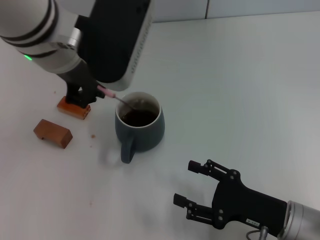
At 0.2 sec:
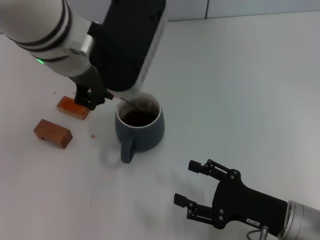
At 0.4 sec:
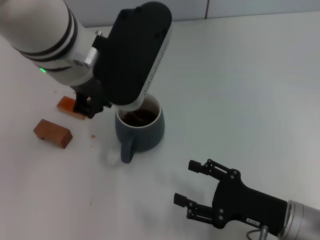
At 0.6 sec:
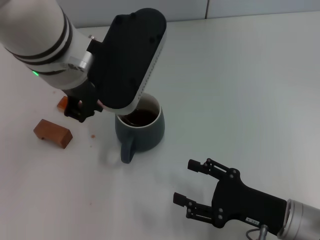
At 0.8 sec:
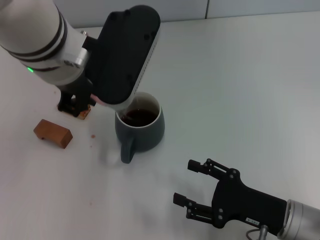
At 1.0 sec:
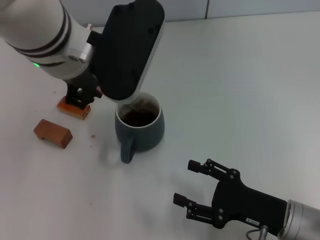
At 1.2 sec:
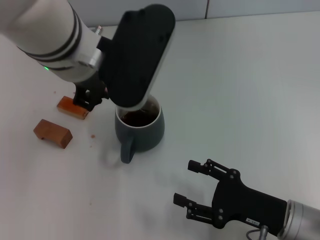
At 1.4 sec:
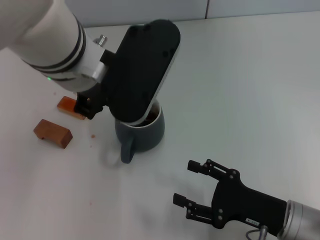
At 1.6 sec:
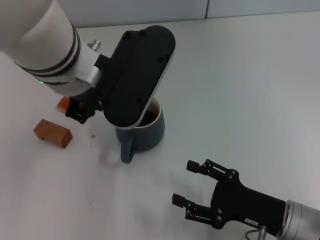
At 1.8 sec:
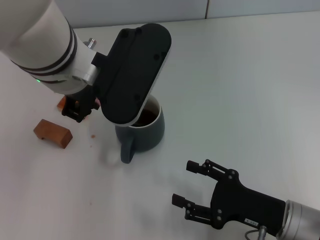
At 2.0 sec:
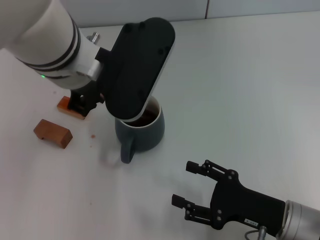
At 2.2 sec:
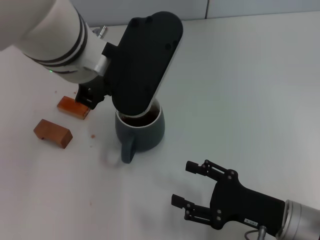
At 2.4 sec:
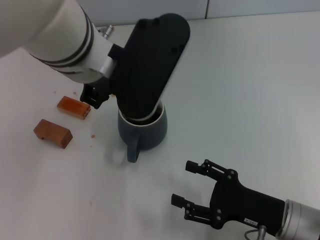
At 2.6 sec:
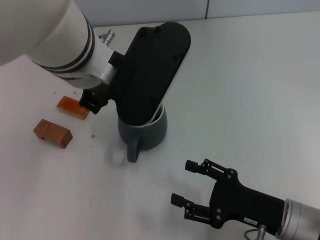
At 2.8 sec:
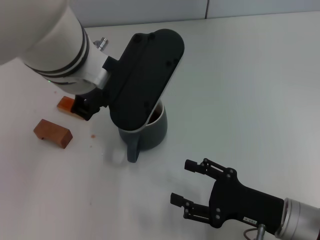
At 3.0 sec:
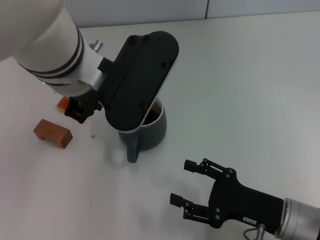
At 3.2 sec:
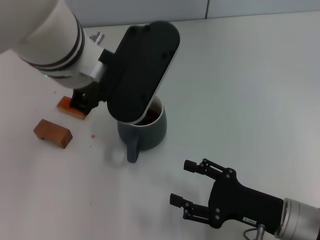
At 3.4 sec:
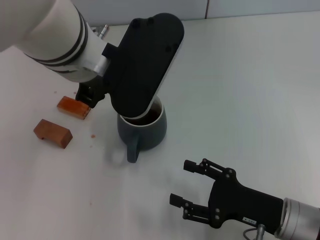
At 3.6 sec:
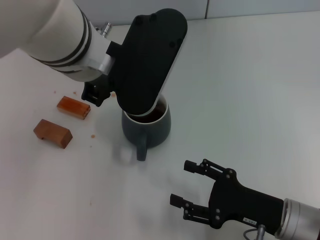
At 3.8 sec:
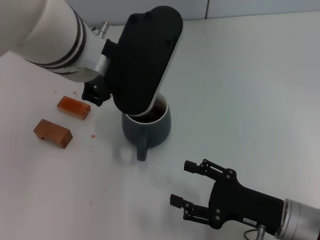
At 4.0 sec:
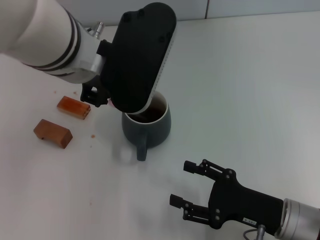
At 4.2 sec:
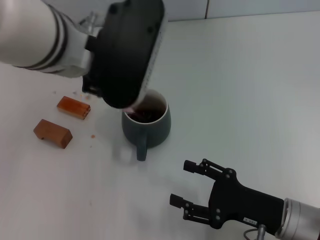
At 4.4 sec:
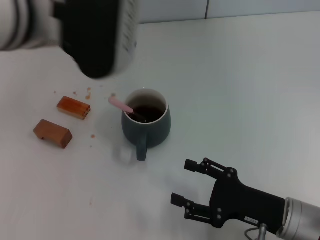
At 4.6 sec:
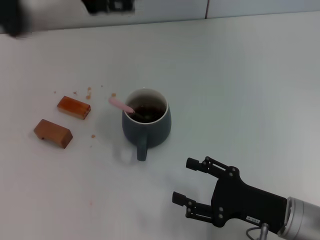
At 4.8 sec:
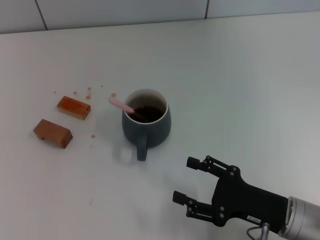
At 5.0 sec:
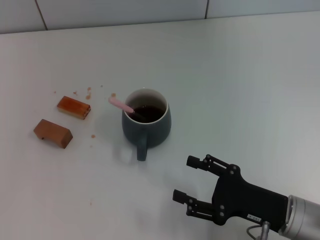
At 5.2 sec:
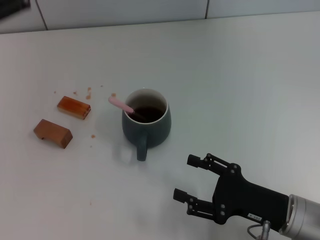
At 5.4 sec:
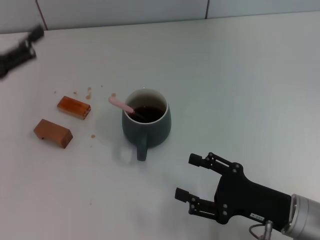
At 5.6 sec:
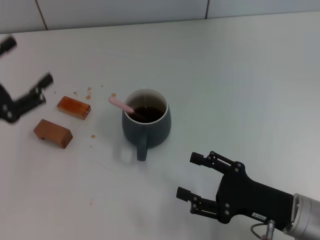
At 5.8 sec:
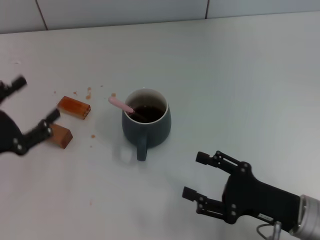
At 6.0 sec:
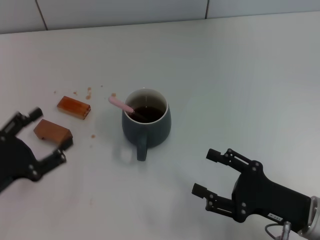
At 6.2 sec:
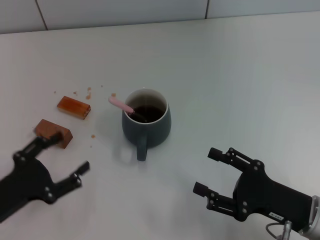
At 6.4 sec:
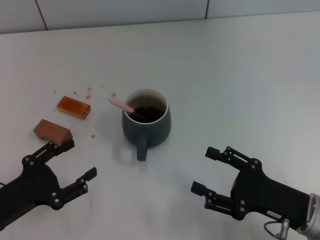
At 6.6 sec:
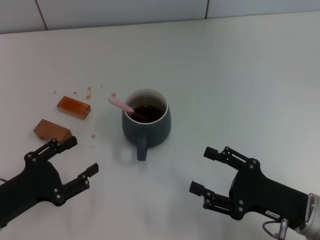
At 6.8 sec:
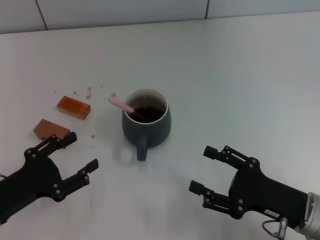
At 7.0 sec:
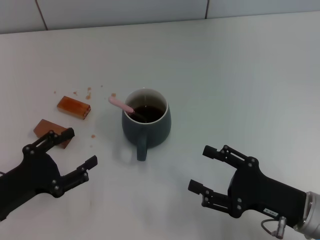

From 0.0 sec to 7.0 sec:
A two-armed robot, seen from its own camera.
Task of the whole recording: Move the grey cup to the center, lift the pink spoon, stir it three times in the cup, and put the spoon into the cup.
Step, from 0.0 sec to 4.0 sec: Stir the coffee in the cup with the left gripper.
From 0.0 sec to 1.4 sec: There are only small adjustments of the grippers.
From 1.4 sec to 2.8 sec: Both grippers stay about where they are.
From 2.8 sec to 4.2 sec: The left gripper opens its fingers.
From 4.2 sec to 5.6 sec: The left gripper is displaced to the left and downward by about 25 cm, and opens up.
From 5.6 sec to 7.0 sec: The left gripper moves downward, approximately 10 cm.
